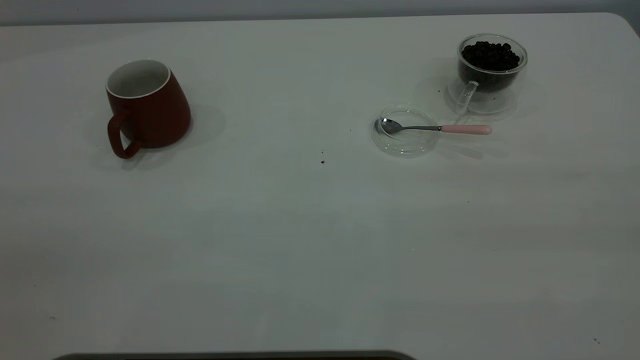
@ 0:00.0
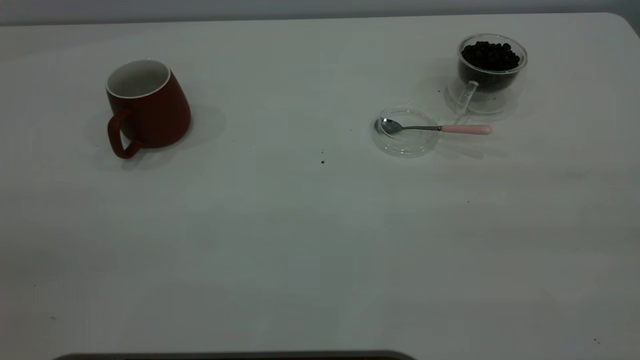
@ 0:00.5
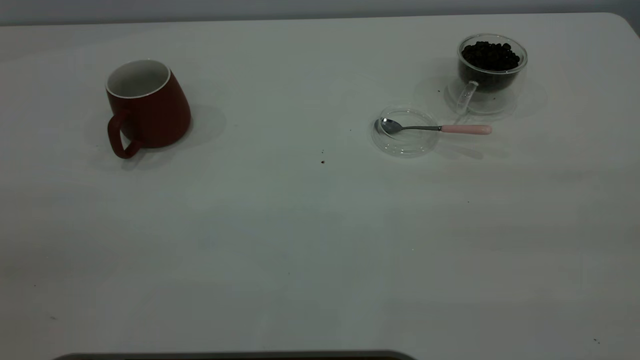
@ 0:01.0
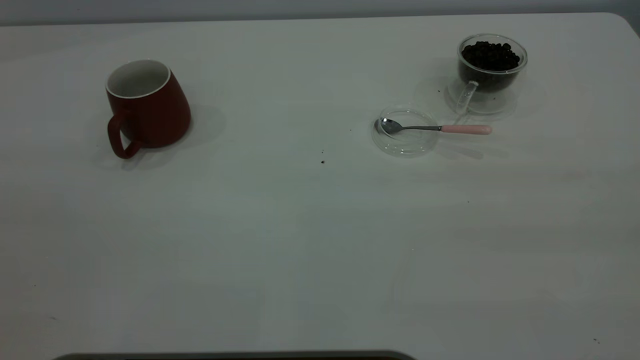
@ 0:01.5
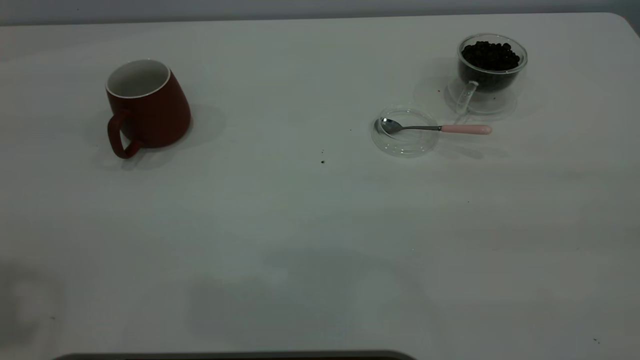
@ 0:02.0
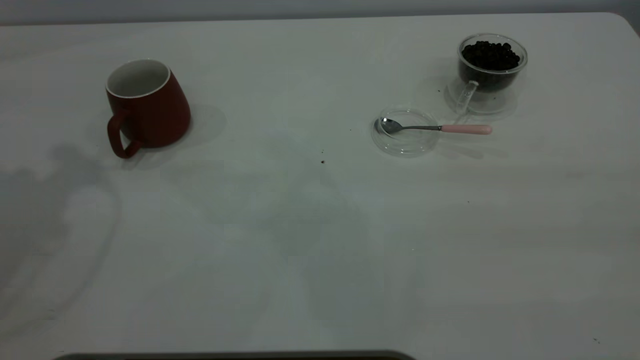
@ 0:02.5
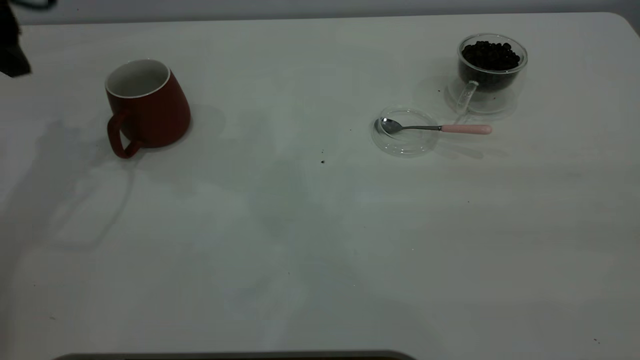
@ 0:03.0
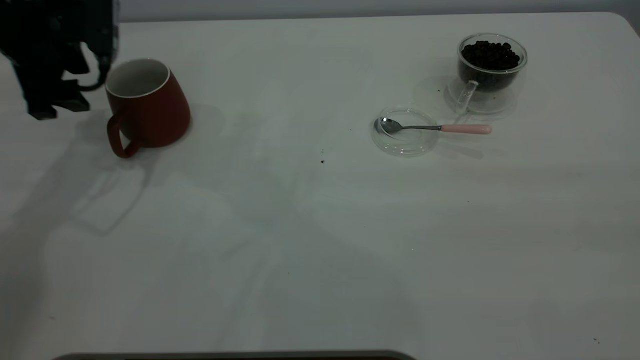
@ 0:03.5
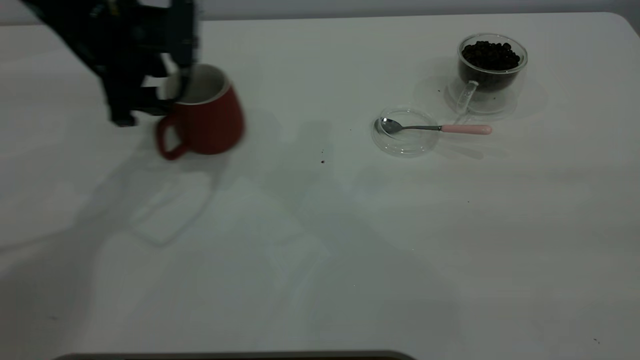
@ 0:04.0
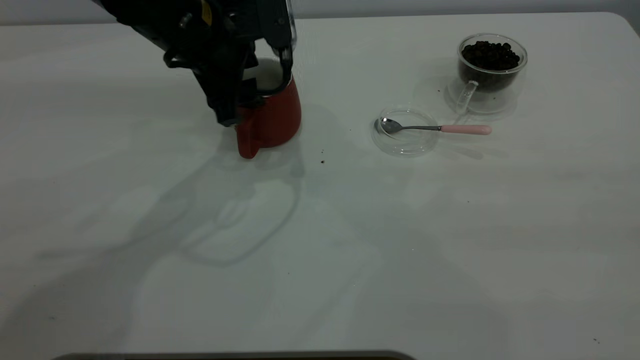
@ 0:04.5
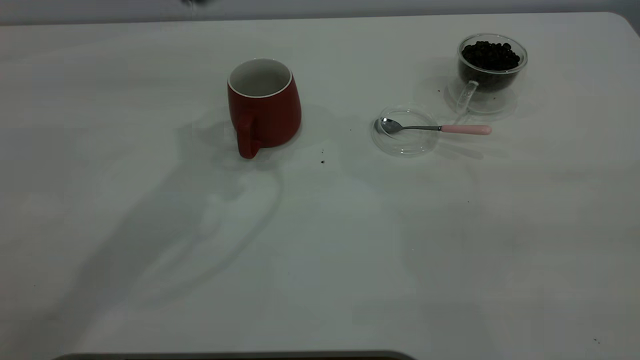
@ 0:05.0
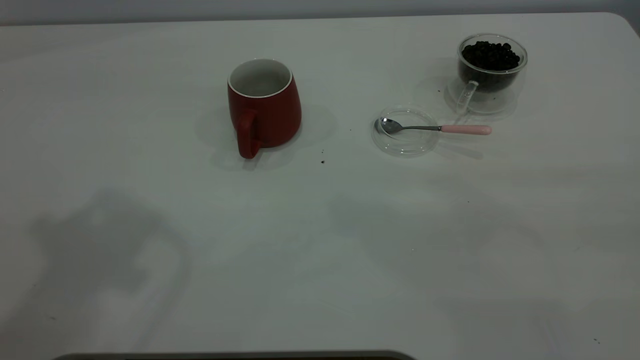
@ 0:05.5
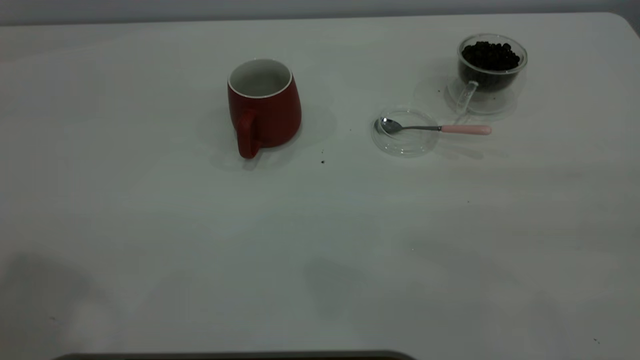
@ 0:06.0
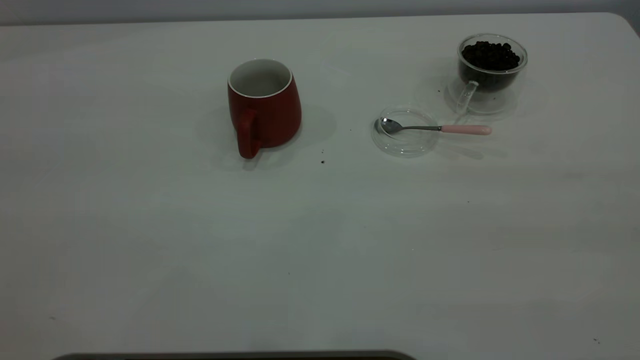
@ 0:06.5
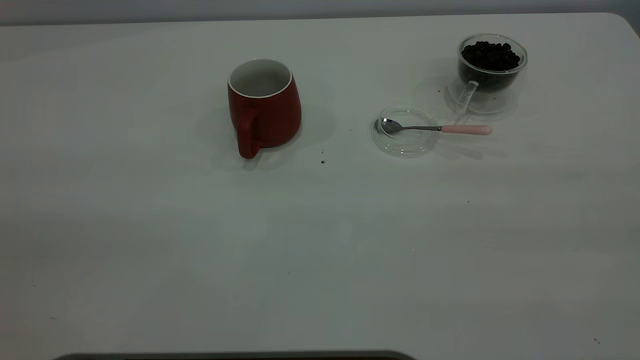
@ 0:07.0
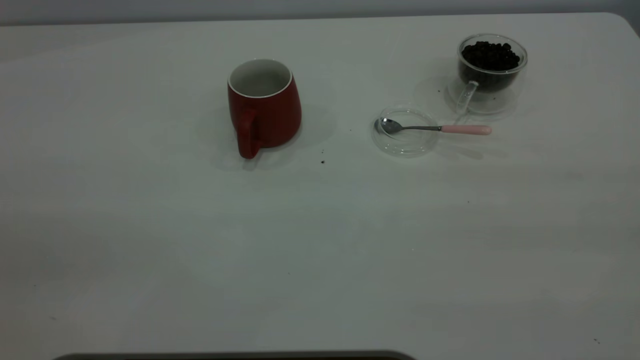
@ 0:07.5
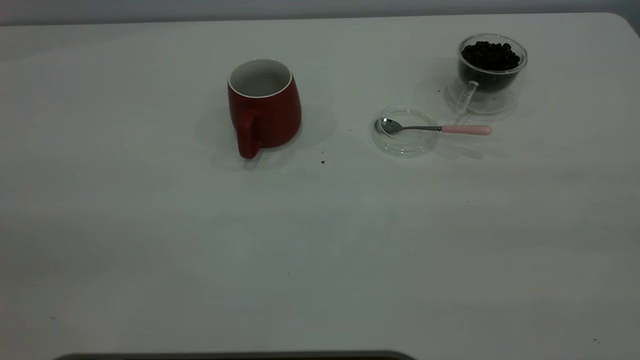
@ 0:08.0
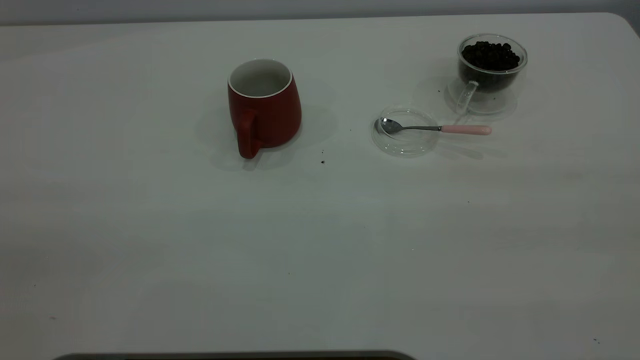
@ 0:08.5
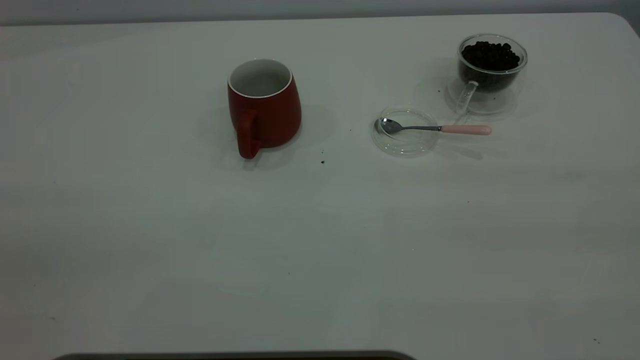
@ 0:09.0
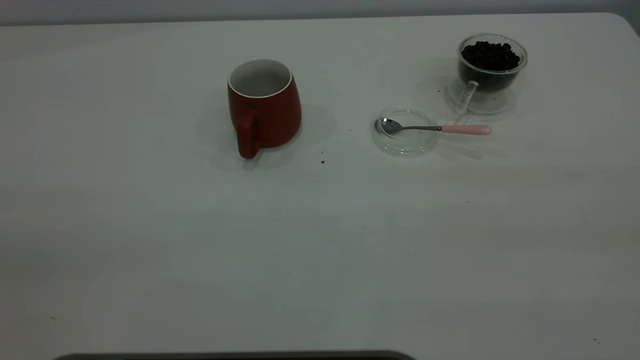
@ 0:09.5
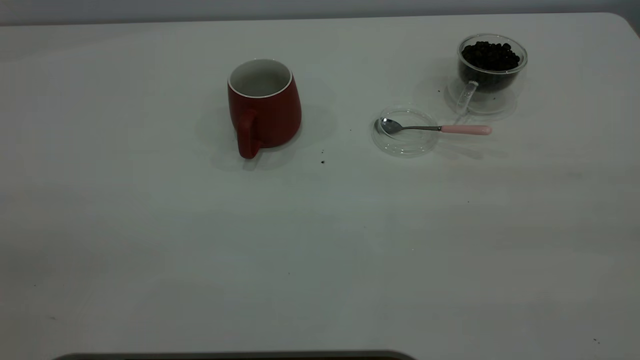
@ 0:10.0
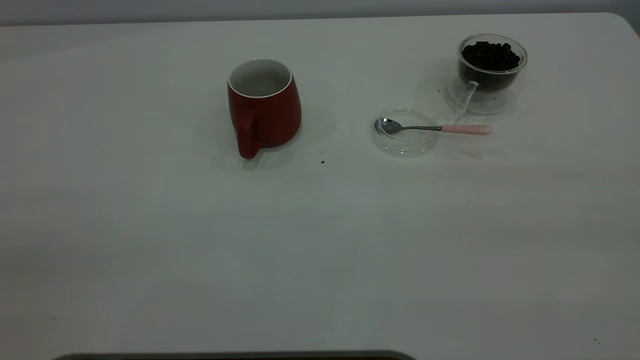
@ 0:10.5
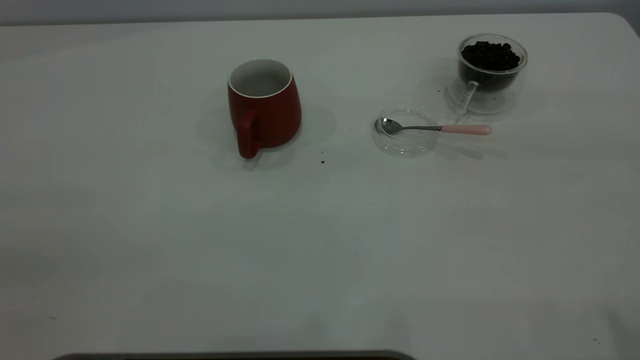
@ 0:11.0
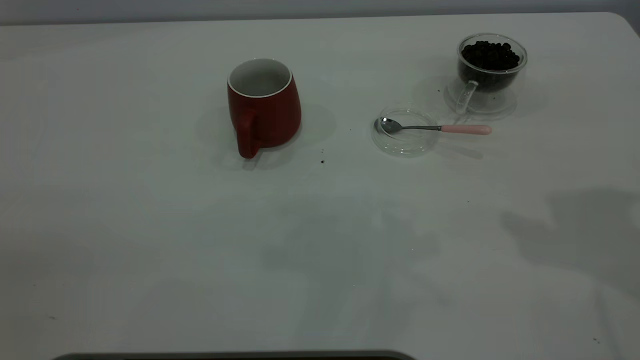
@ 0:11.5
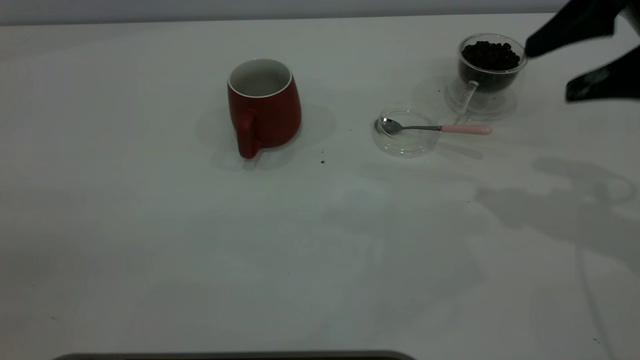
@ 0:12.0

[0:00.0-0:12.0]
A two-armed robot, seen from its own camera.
Task of the whole recording: the left gripper place the red cup in the center of the table, the right gripper take the pink spoon from the cup lid and scoop out the coffee beans from the coffee cup and put them into the red cup, the right gripper put the spoon back into the cup lid.
Step, 0:00.0 to 0:04.5: Move the cup to the center of view.
0:02.0 to 0:04.0: The left gripper shifts approximately 35 cm downward, forward and to the right.
0:04.0 to 0:06.0: The left gripper moves upward and backward, some 40 cm.
0:10.0 to 0:12.0: The right gripper heads forward and downward, covering about 30 cm, and opens up.

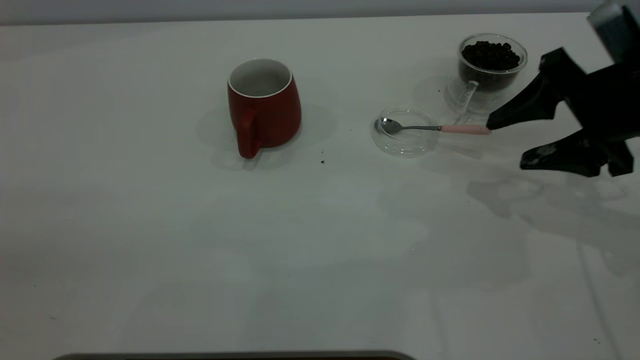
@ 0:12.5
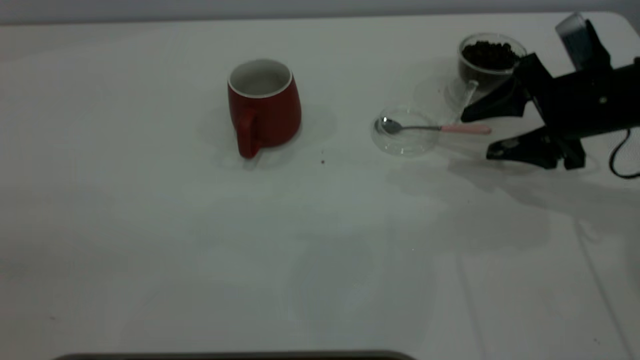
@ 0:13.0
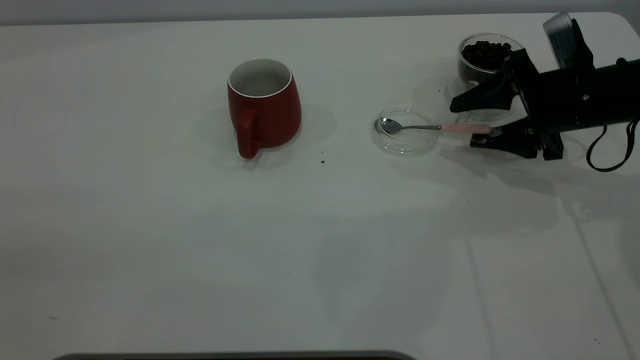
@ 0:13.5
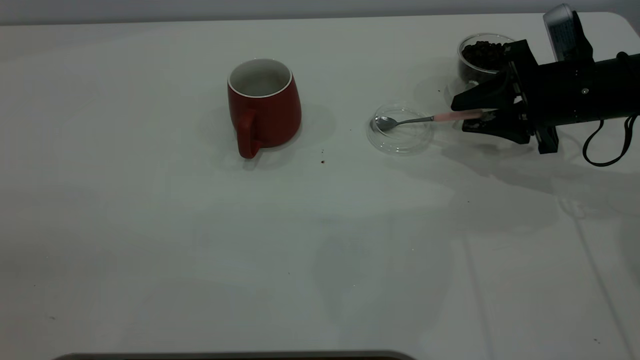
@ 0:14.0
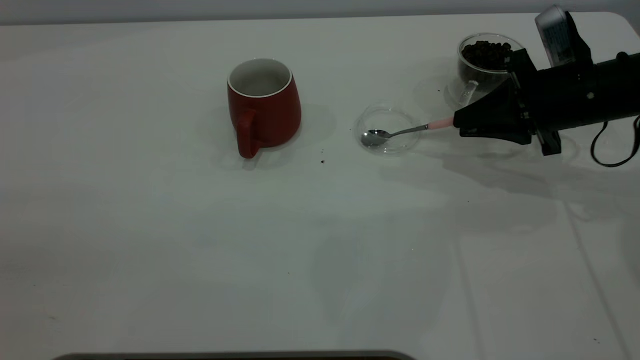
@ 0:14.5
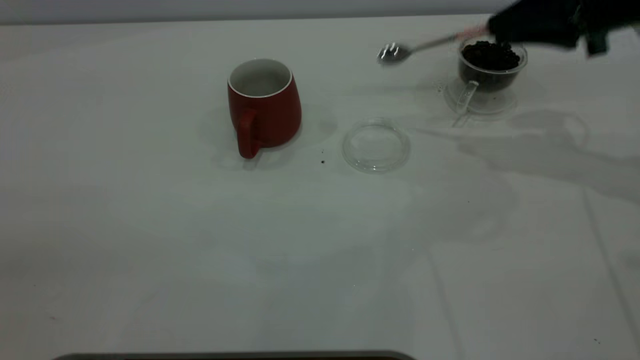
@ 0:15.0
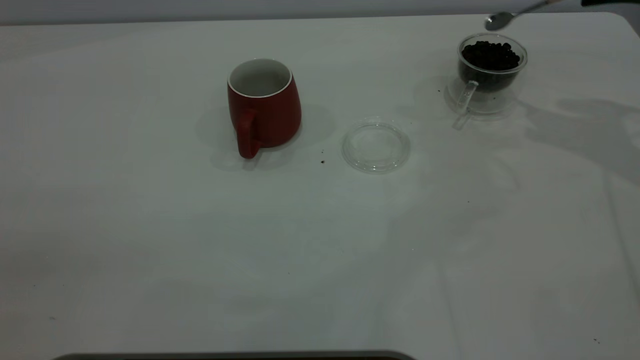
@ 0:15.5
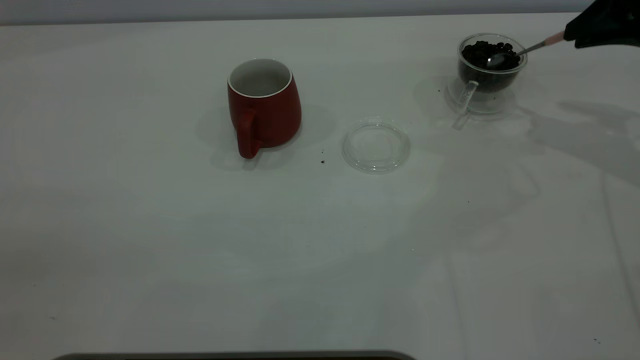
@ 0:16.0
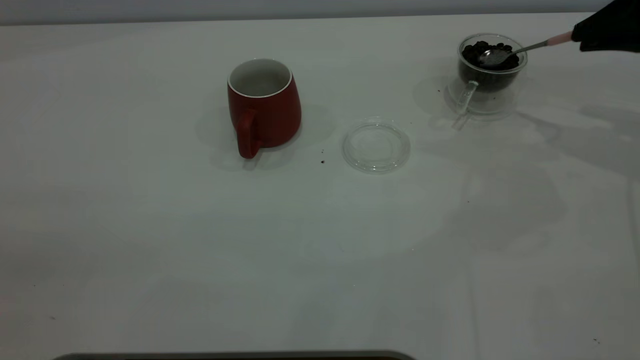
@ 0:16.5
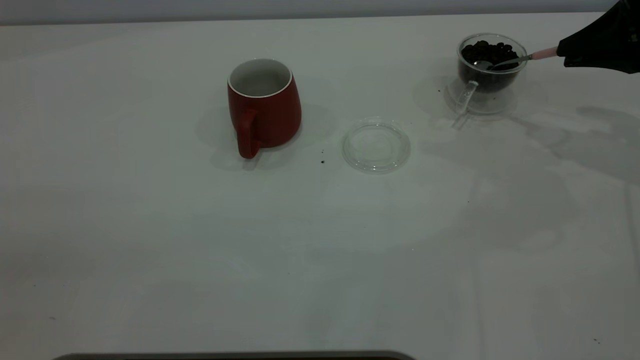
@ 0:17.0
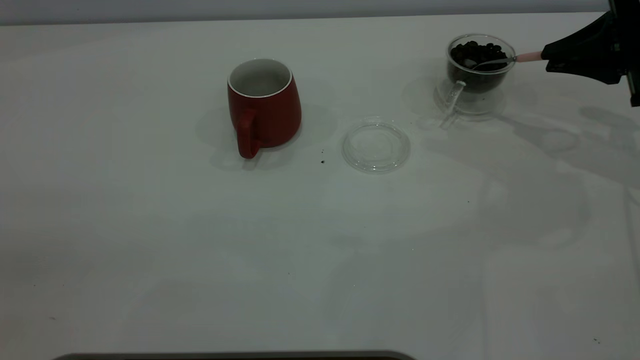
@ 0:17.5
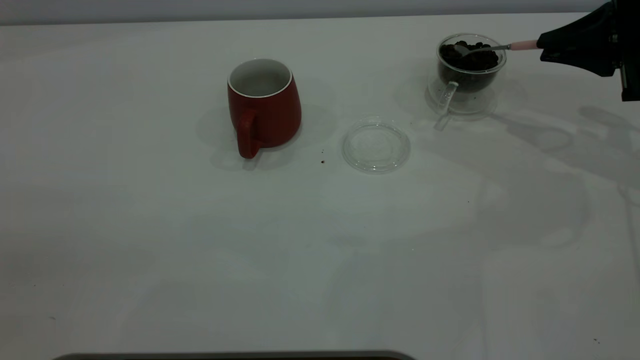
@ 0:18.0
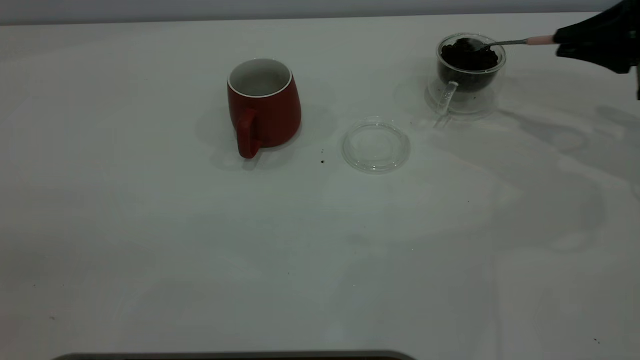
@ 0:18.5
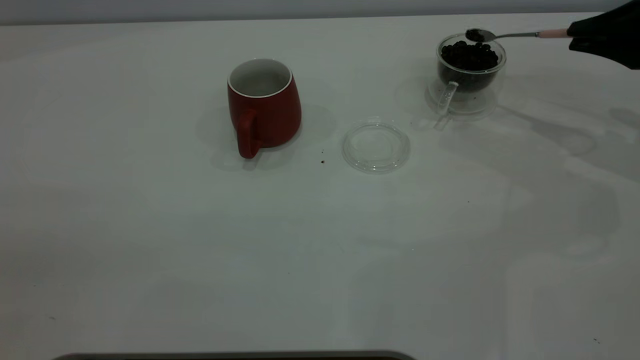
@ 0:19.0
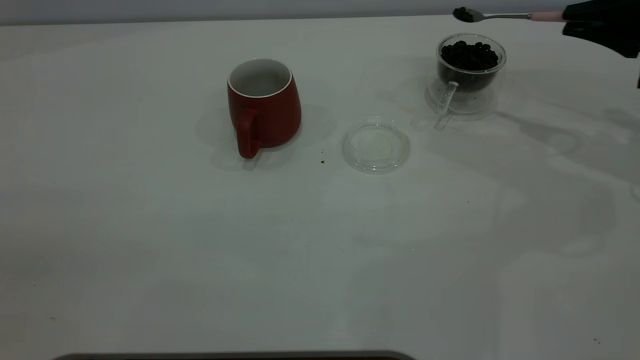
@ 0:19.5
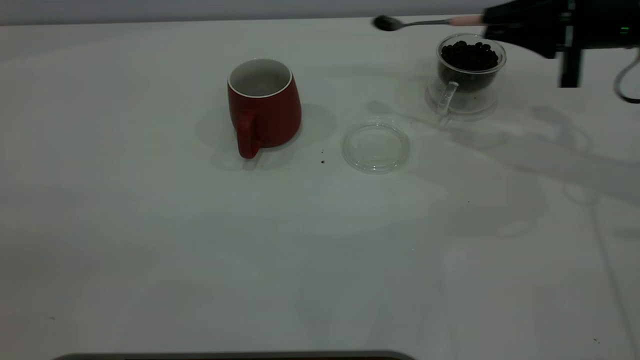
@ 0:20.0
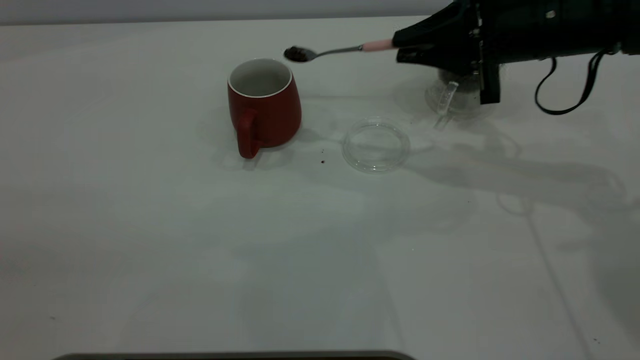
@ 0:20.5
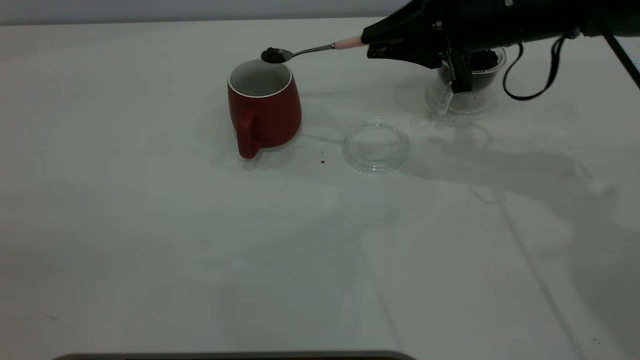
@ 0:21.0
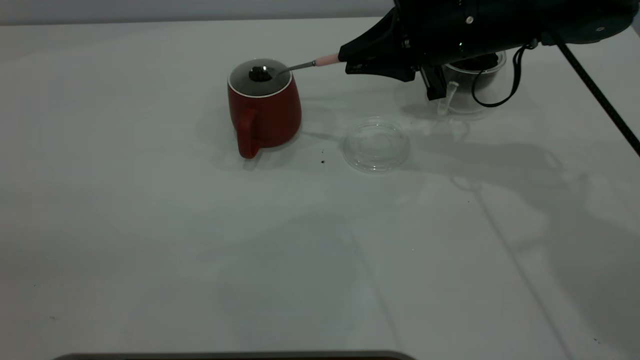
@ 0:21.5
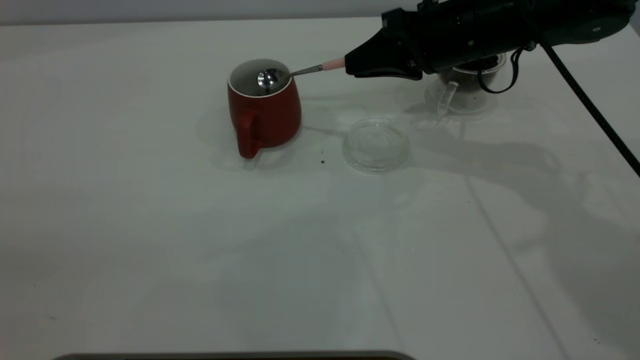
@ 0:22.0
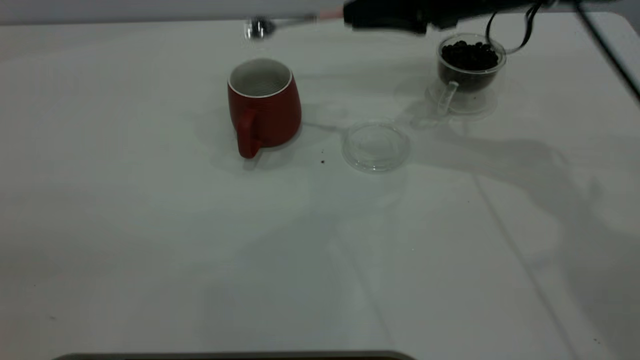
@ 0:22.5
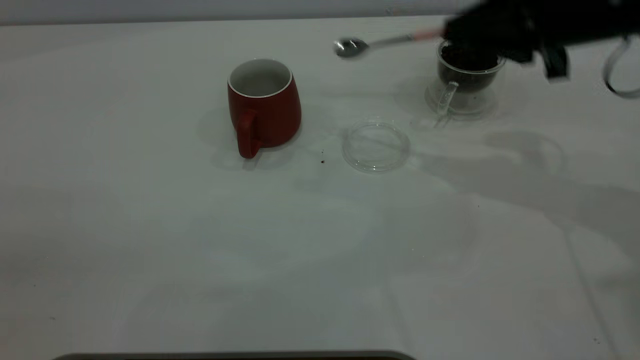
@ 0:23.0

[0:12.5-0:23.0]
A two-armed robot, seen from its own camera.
Task of the whole recording: the left gripper place the red cup in the center of the table, the right gripper take the pink spoon from the cup lid and scoop out the coffee beans from the coffee cup and put them into the red cup, the right gripper put the spoon back into the cup lid.
Step, 0:12.5 to 0:14.5: Pick up the spoon.
Step, 0:15.0 to 0:22.0: Scoop a spoonful of beans into the cup.
0:12.5 to 0:14.5: The right gripper travels forward by roughly 5 cm, and closes.
0:14.5 to 0:16.5: The right gripper is displaced to the right and upward by roughly 15 cm.
0:19.0 to 0:21.0: The right gripper moves to the left, roughly 20 cm.
0:21.0 to 0:23.0: The right gripper is displaced to the right by roughly 5 cm.
